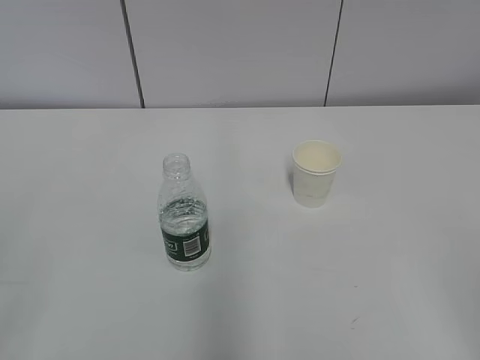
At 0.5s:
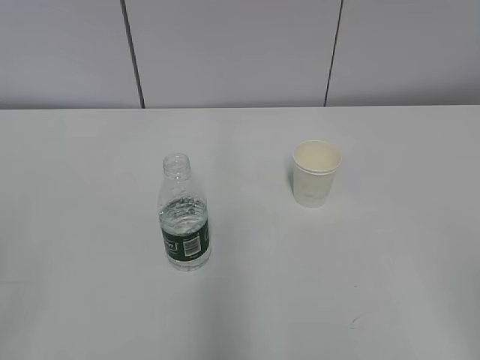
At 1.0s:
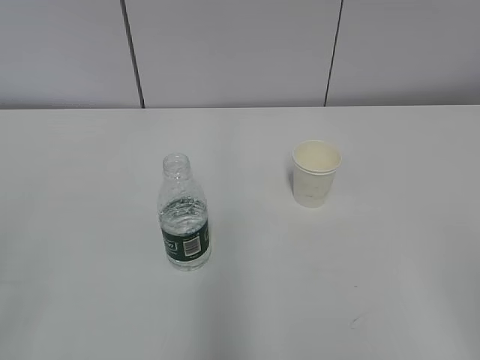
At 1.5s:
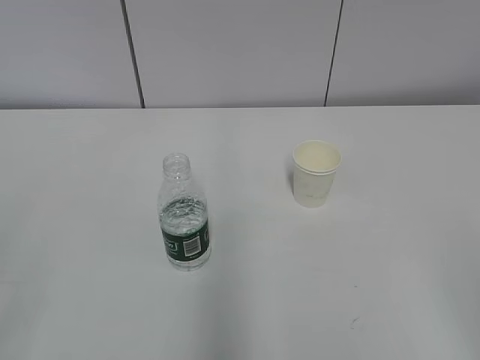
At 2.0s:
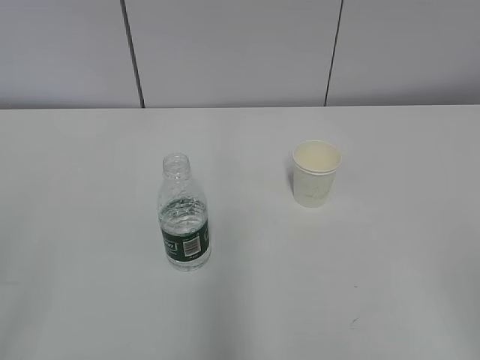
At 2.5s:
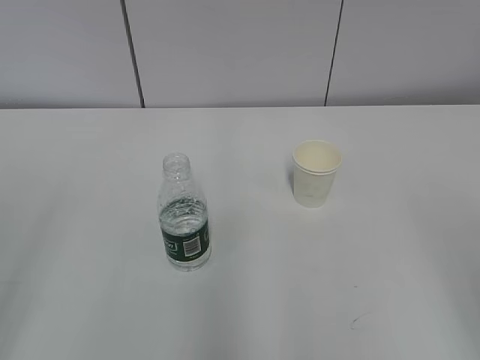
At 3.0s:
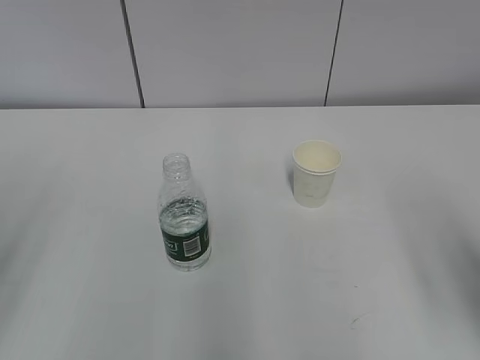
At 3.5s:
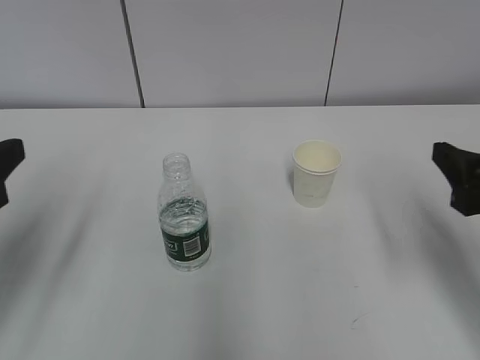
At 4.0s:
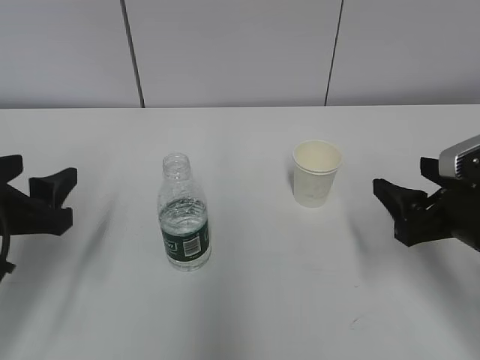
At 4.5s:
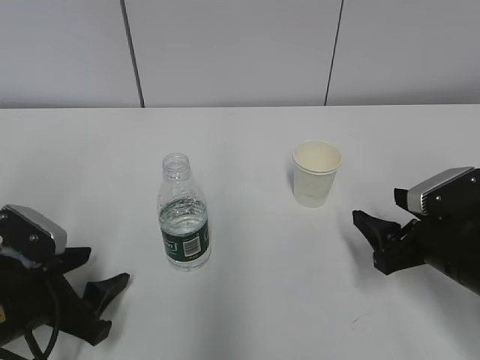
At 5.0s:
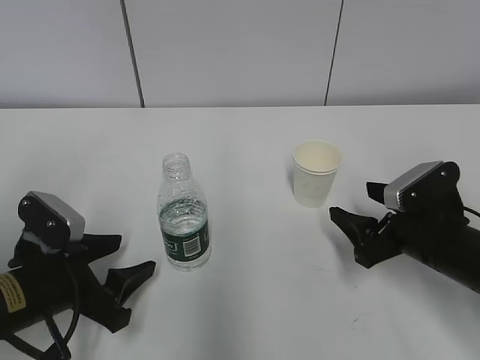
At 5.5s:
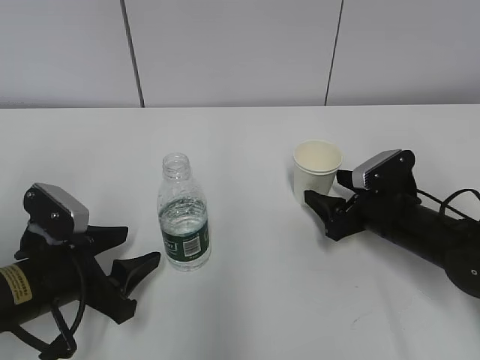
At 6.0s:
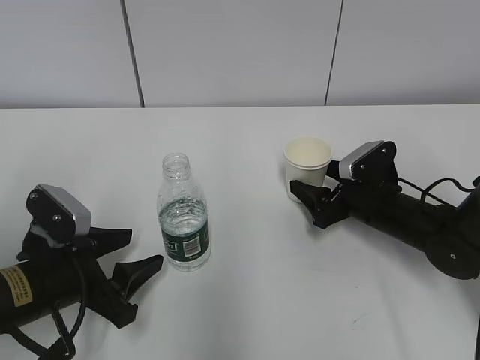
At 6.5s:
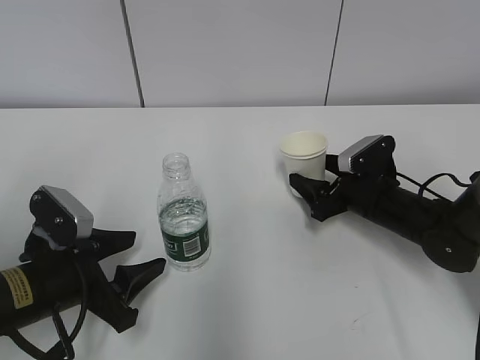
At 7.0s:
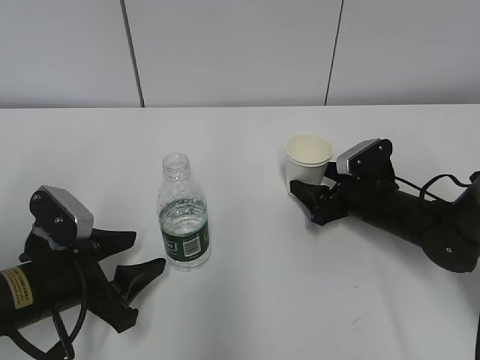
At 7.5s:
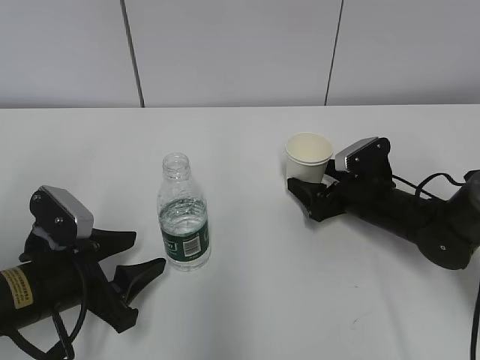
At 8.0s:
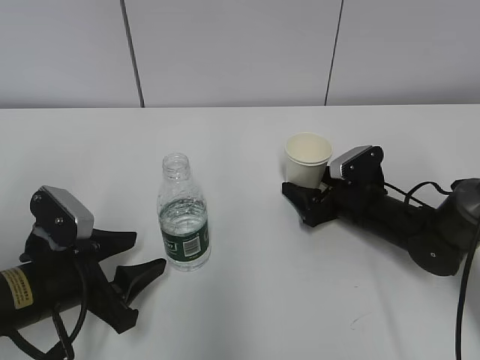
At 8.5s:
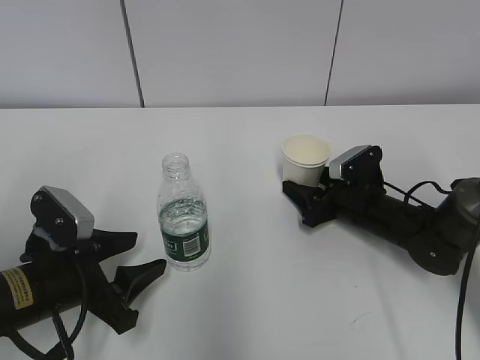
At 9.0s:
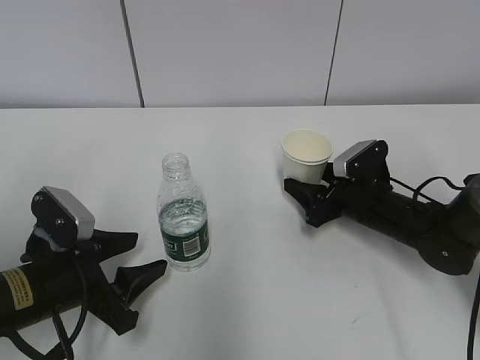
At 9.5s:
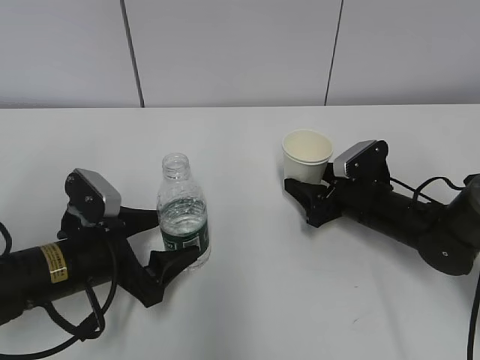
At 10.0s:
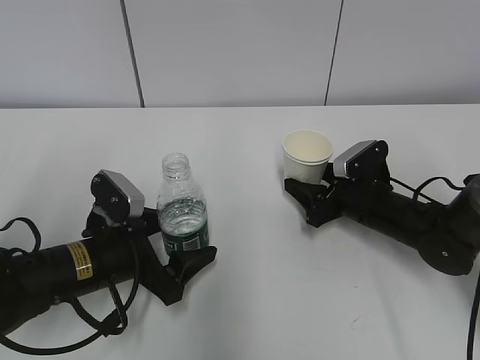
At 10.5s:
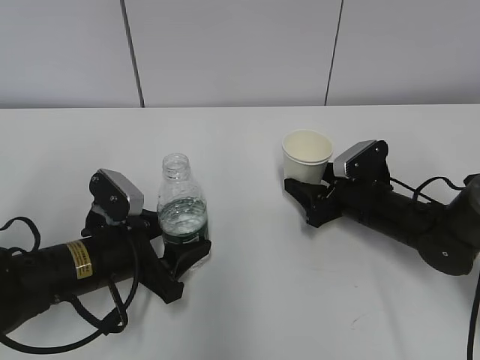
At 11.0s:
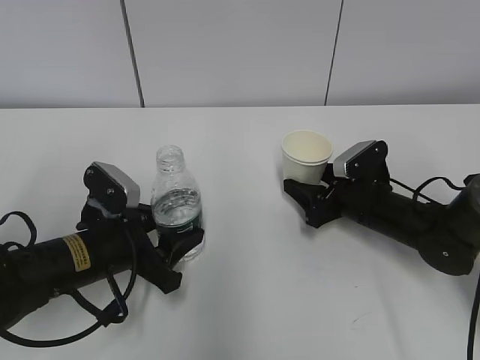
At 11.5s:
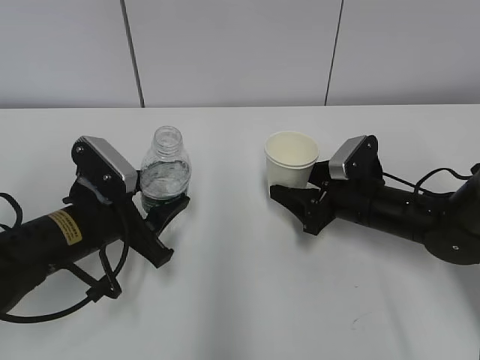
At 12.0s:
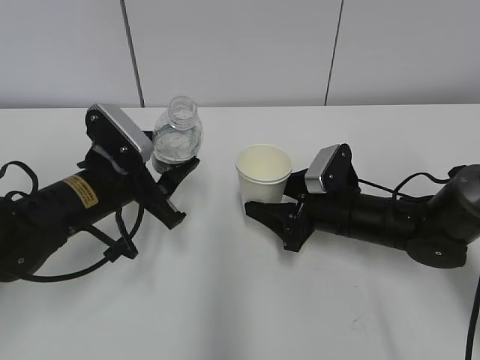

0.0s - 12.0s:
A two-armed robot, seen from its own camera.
Step, 0.0s - 7.0s: Grab the paper cup with the right hand.
2.0s - 4.0s: The grippers both shift forward and downward by some 25 cm.
4.0s - 6.0s: The right gripper goes some 15 cm forward and downward, while the left gripper travels downward by some 10 cm.
6.0s - 8.0s: The grippers make only small movements.
8.0s - 10.0s: The left gripper ends up roughly 5 cm from where it was, and opens up, while the right gripper closes.
10.0s - 12.0s: The right gripper ends up roughly 5 cm from where it was. The left gripper goes about 5 cm upward, and closes up.

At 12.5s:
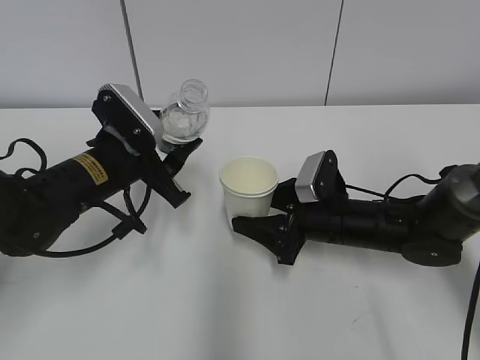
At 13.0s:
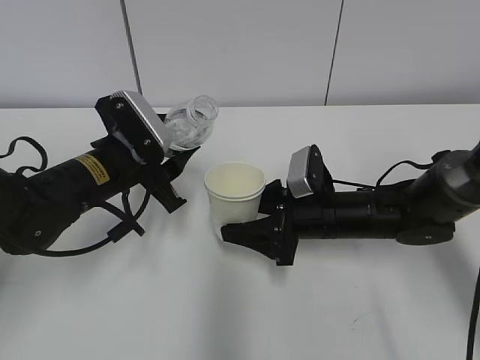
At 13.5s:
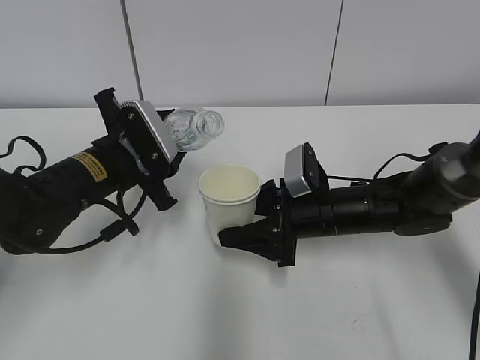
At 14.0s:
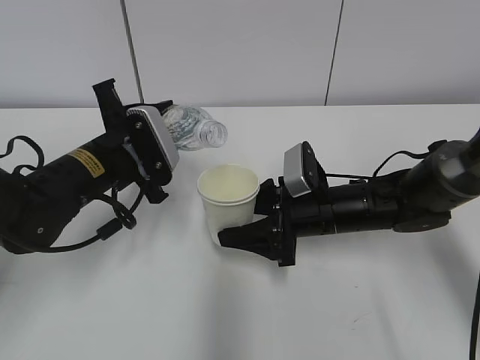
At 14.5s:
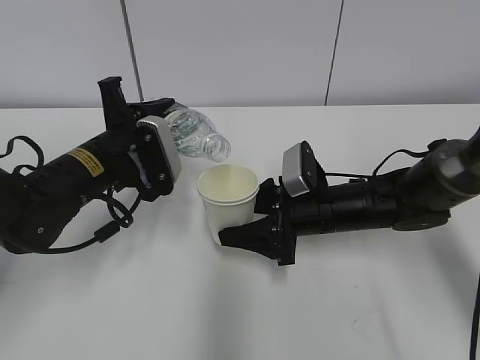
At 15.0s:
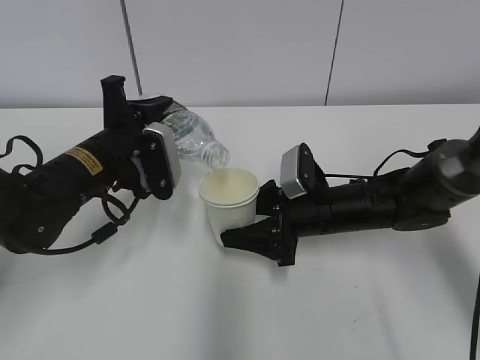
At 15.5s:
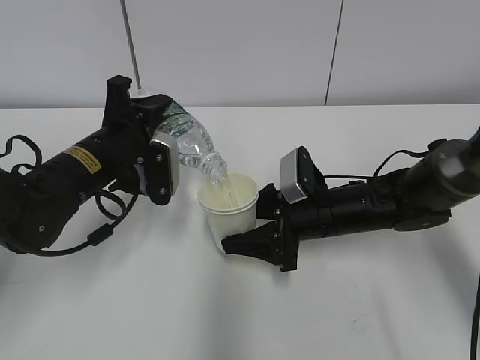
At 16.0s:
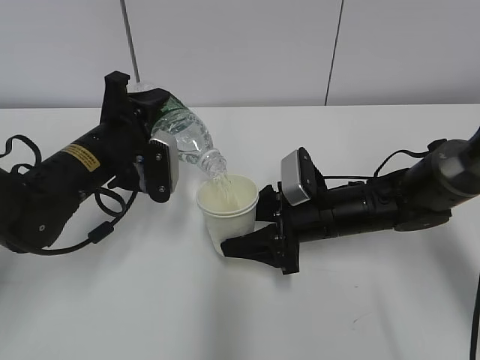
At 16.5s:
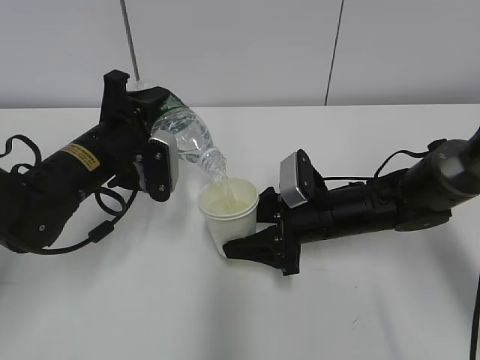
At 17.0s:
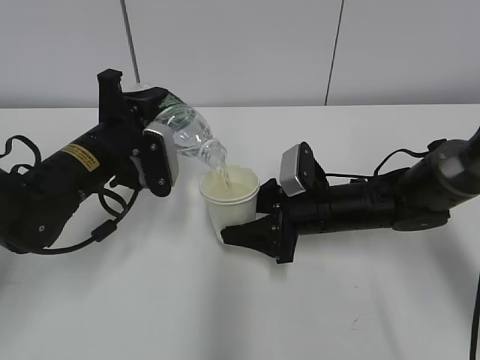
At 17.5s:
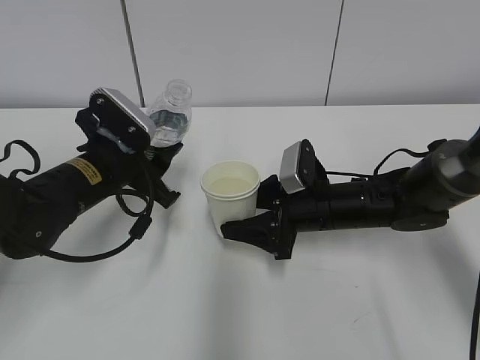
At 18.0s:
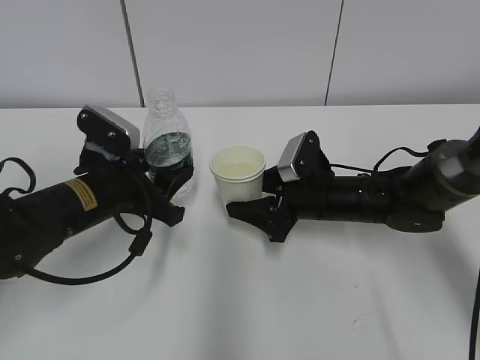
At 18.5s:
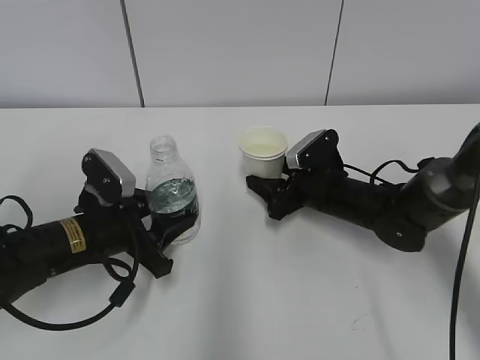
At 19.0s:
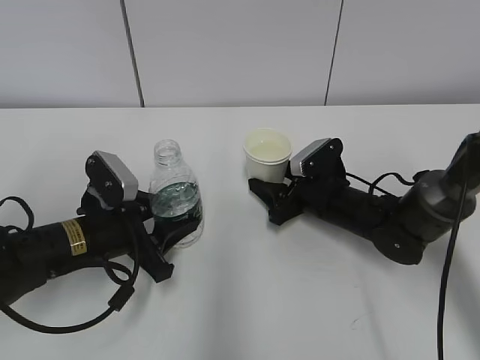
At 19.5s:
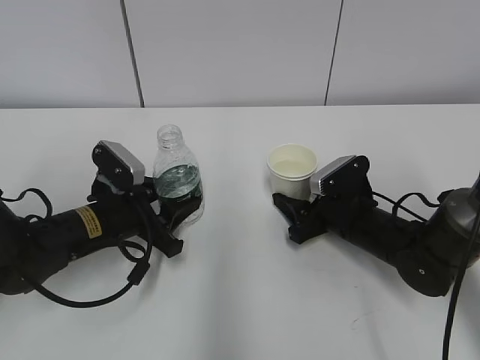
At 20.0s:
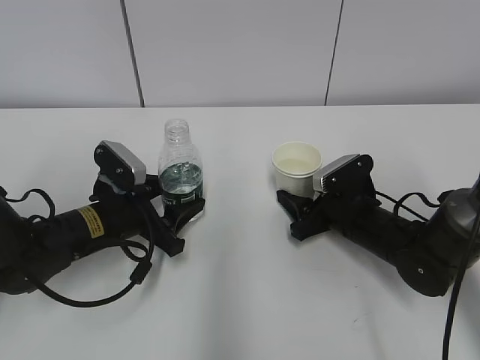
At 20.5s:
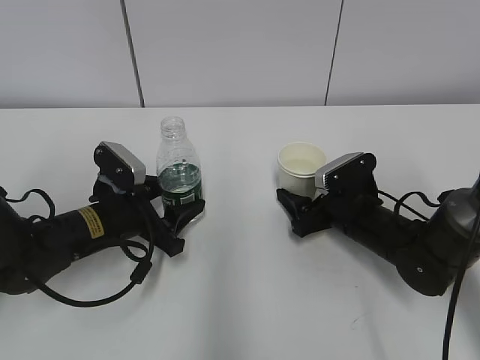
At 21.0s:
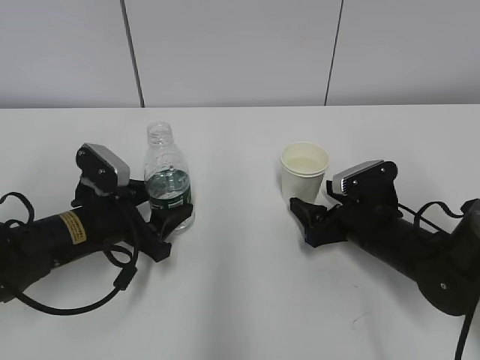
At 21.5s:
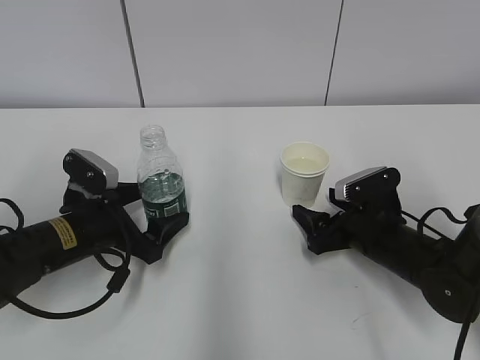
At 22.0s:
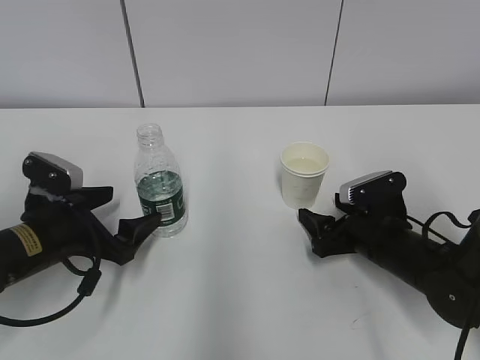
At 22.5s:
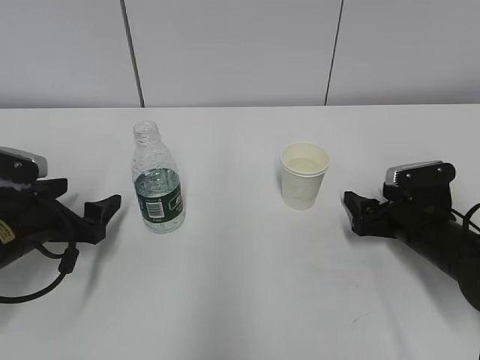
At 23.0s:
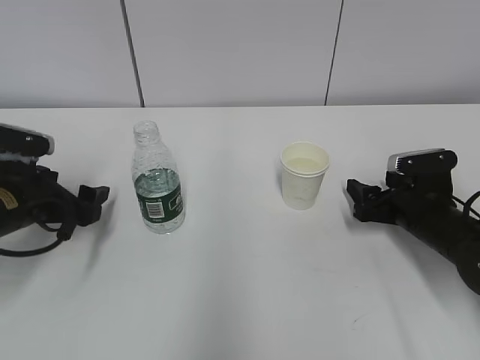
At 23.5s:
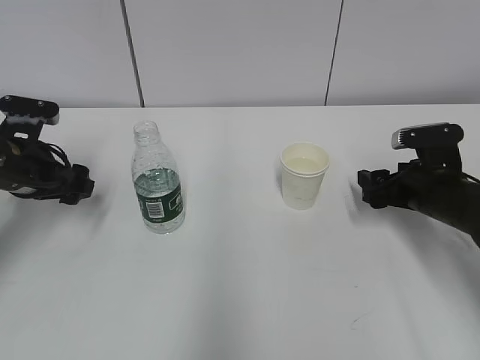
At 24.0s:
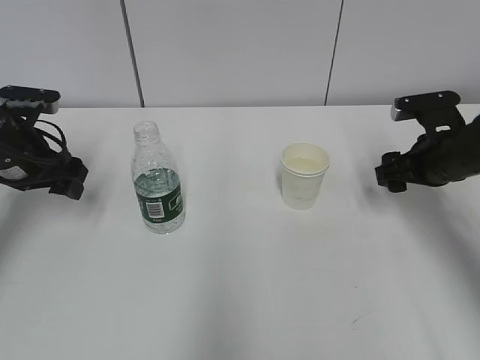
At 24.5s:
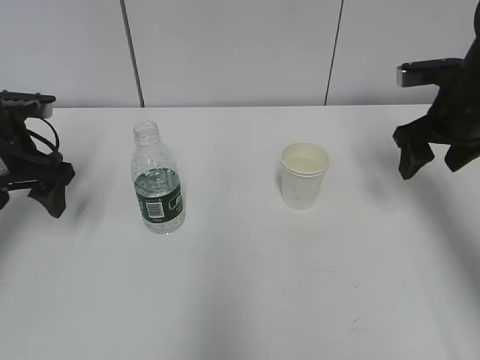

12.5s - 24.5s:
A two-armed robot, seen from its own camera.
Step, 13.0s - 14.0s: Fill water with the right hand.
Step, 13.0s - 14.0s: Pour water with the left hand.
Step, 15.0s - 17.0s: Place the paper cup with the right hand.
Step, 17.5s - 18.0s: Place the water bottle with the left hand.
14.5s - 16.5s: The grippers make only small movements.
16.5s - 18.5s: The left gripper is displaced downward by about 5 cm. The right gripper changes place by about 5 cm.
18.5s - 20.5s: The right gripper changes place by about 5 cm, and opens its fingers.
20.5s - 22.5s: The left gripper moves to the left, approximately 10 cm, and opens; the right gripper travels to the right by about 5 cm.
22.5s - 24.5s: The left gripper moves upward and forward, some 15 cm. Meanwhile the right gripper travels upward by roughly 15 cm.

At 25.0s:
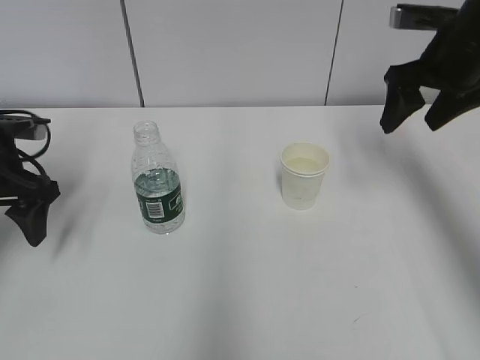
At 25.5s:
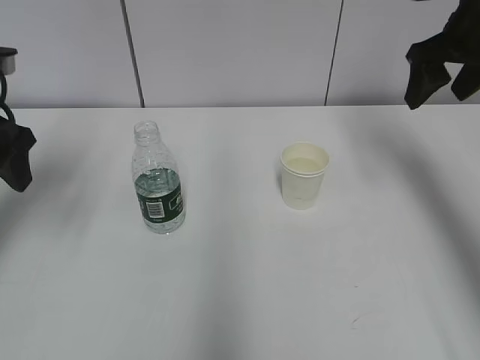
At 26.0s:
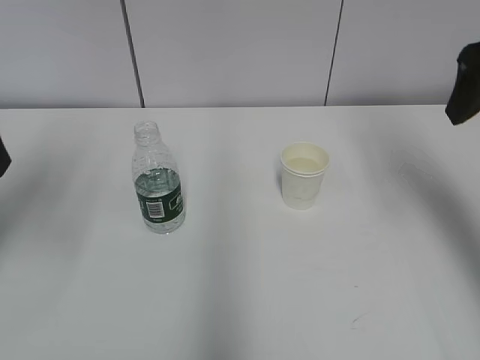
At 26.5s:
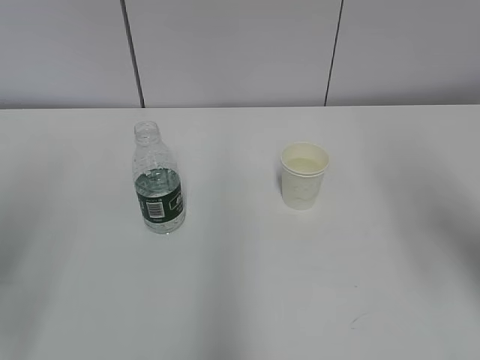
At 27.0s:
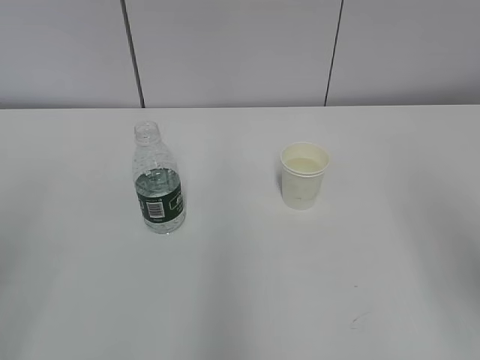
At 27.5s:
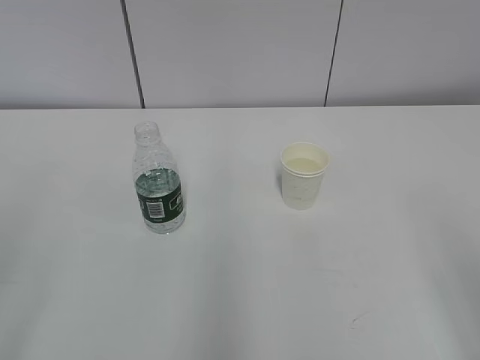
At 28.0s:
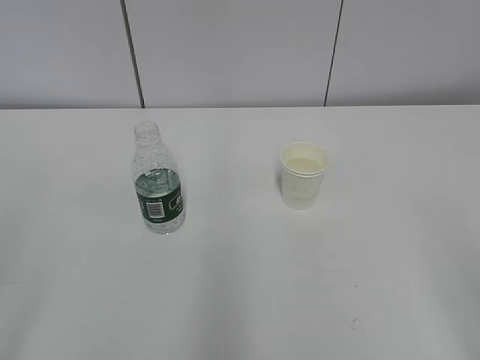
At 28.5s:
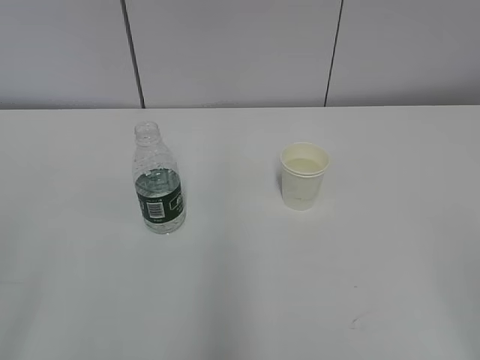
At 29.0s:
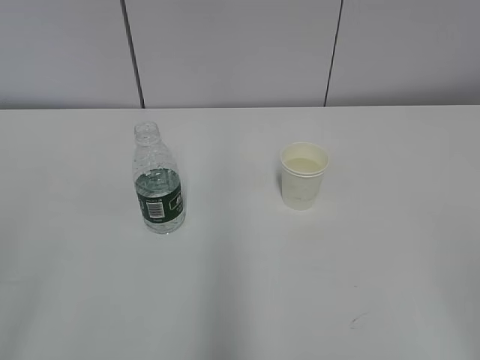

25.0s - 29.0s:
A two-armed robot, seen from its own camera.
25.0s - 27.0s: The grippers both shift backward by approximately 25 cm.
